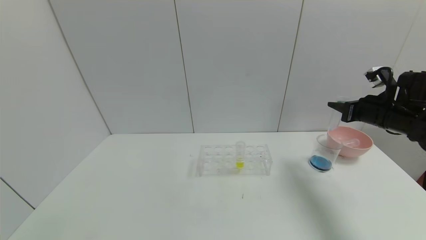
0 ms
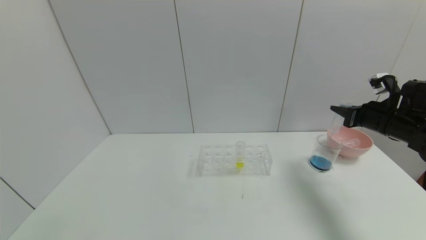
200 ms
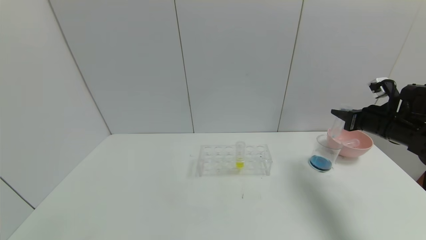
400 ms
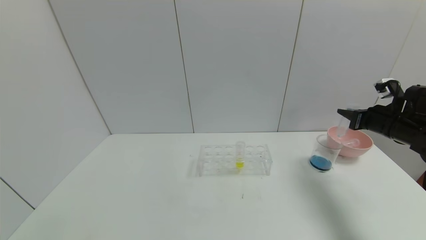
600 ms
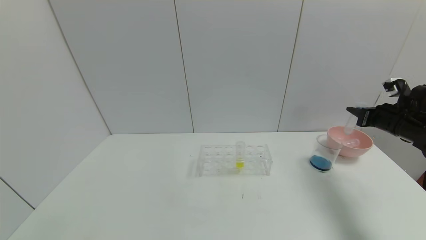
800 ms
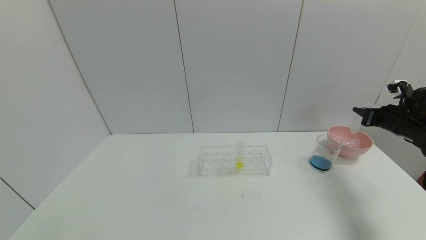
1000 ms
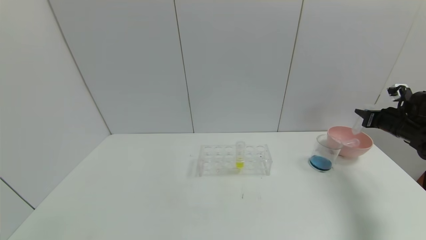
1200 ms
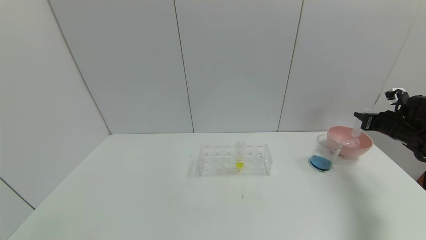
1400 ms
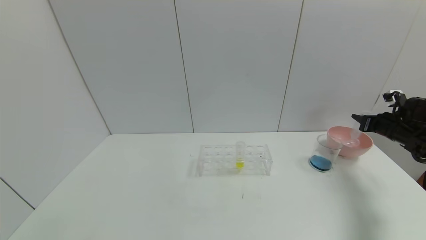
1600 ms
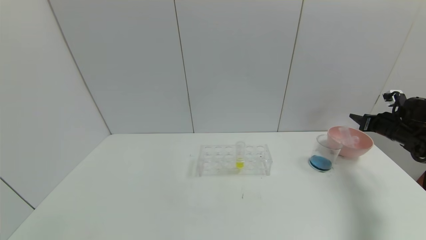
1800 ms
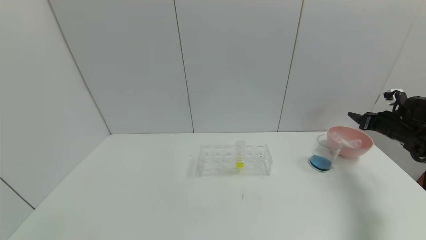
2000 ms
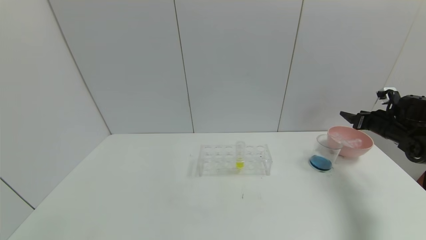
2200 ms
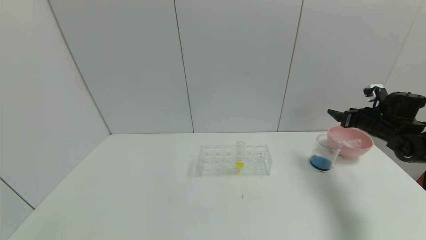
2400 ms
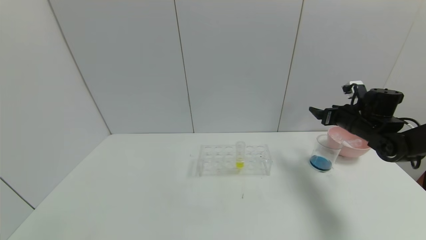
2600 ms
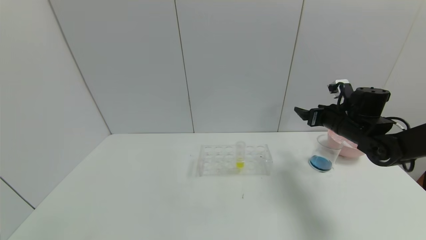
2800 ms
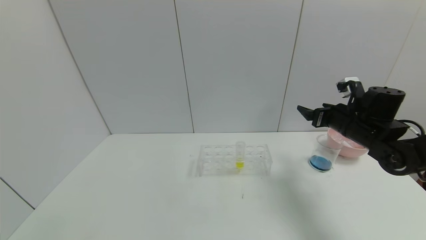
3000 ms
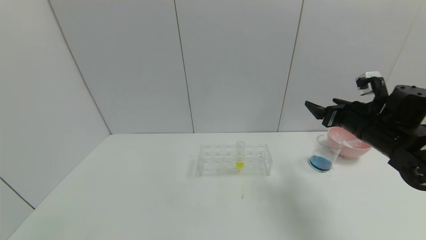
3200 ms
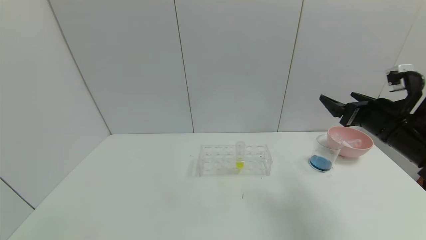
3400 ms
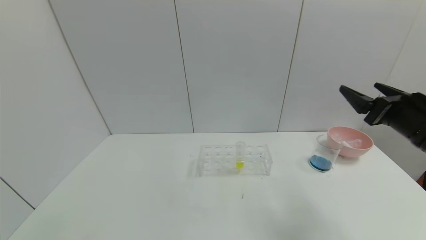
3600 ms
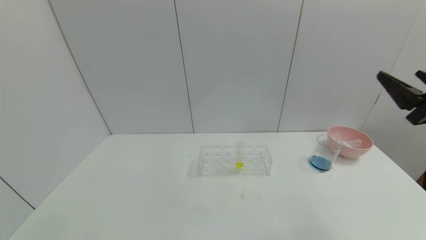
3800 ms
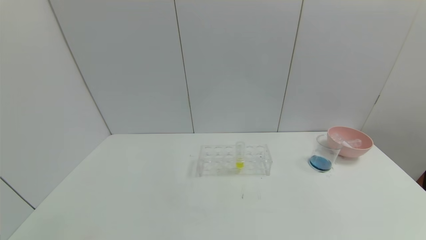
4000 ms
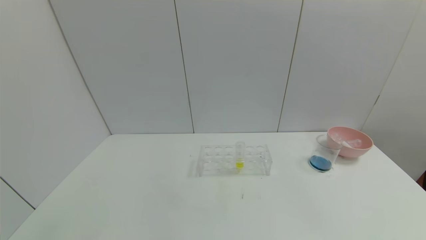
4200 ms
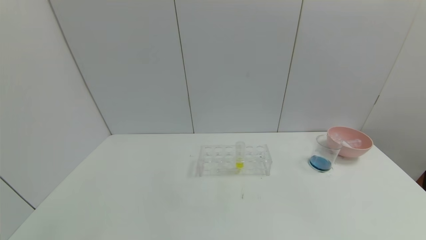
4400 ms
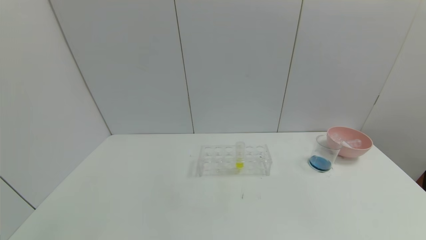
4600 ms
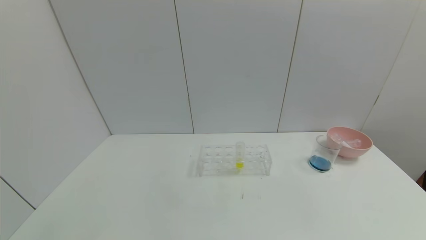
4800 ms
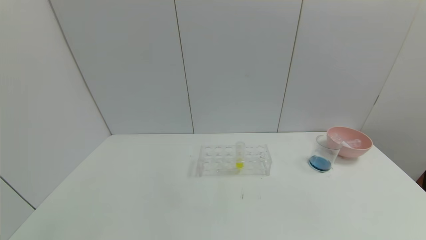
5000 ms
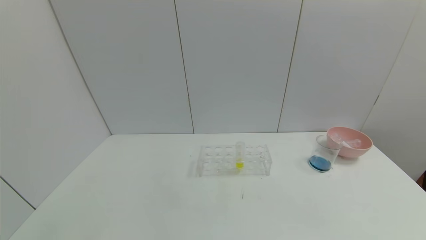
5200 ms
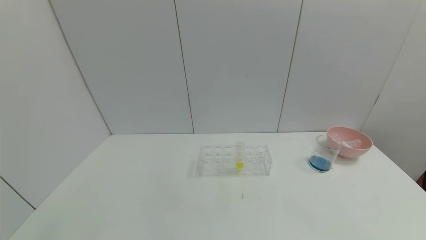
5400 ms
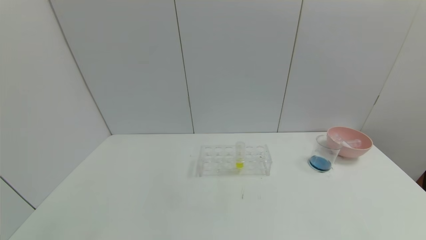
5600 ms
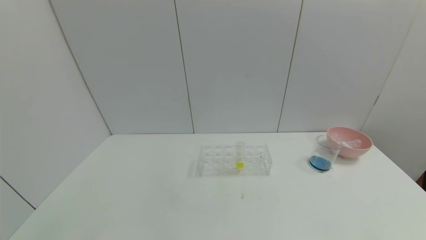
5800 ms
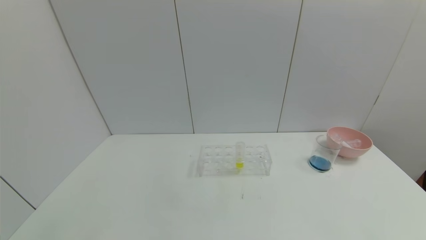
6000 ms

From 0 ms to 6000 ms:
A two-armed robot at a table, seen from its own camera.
Task of the whole recording: pick up the test tube with red pigment and the test tube with blue pigment by grippers and pour them into the container.
Step, from 0 ms to 2200 ms: Place the test tube into the bowl with the right gripper.
From 0 ms to 1600 ms: The right gripper shifts about 15 cm to the right and downward.
From 1600 ms to 3000 ms: The right gripper travels to the left by about 15 cm, and opens.
From 3000 ms to 4400 ms: The right gripper heads backward, covering approximately 35 cm.
